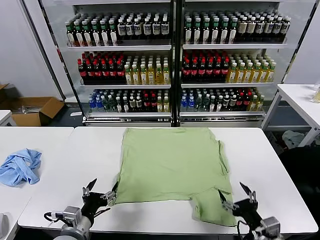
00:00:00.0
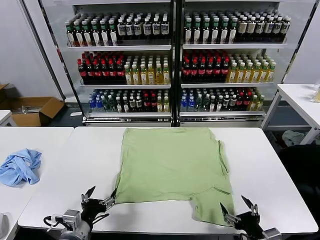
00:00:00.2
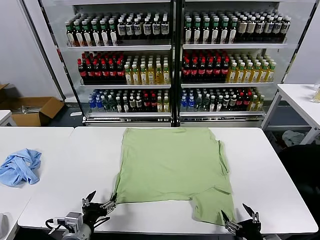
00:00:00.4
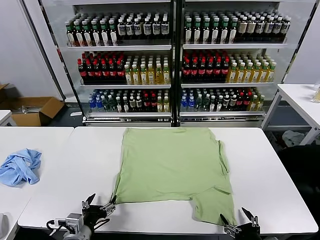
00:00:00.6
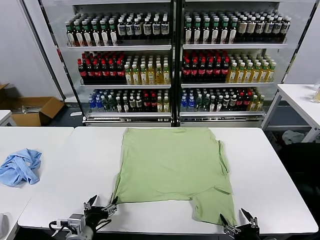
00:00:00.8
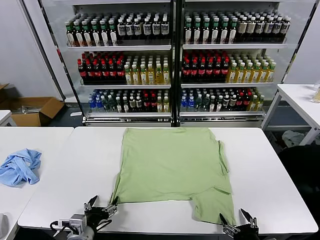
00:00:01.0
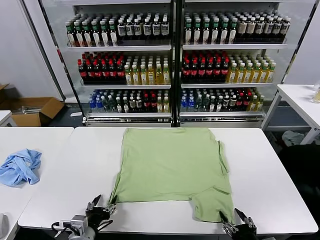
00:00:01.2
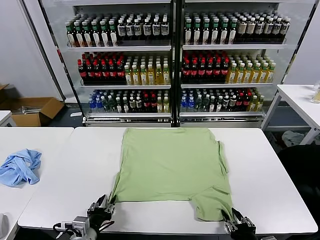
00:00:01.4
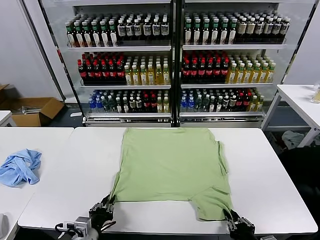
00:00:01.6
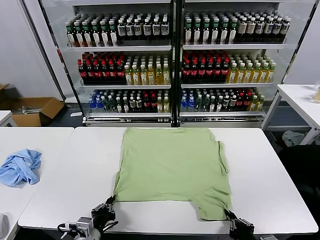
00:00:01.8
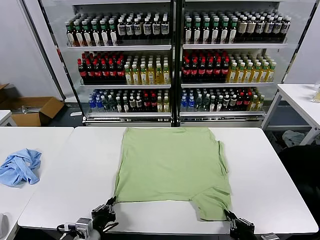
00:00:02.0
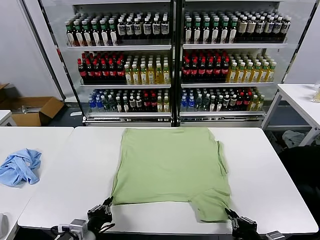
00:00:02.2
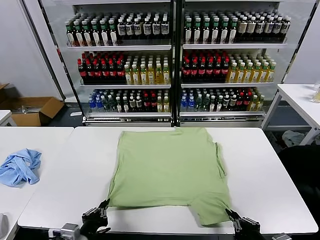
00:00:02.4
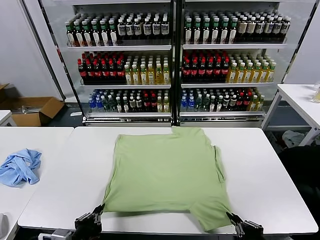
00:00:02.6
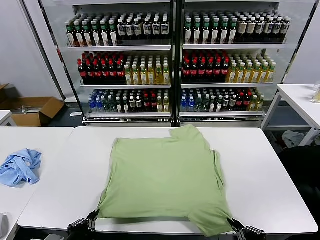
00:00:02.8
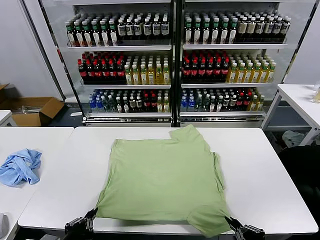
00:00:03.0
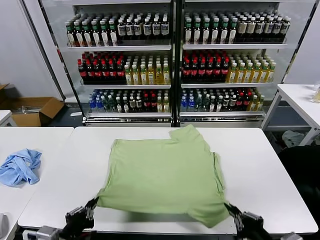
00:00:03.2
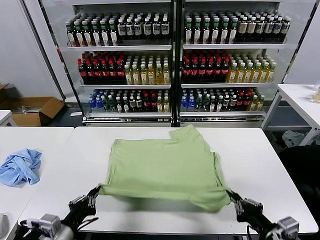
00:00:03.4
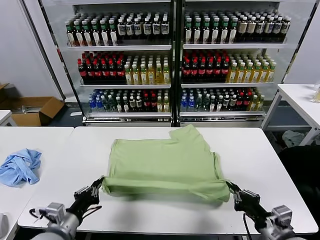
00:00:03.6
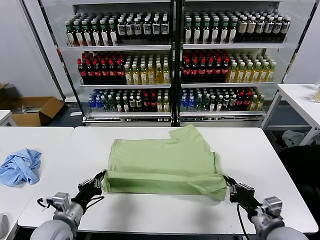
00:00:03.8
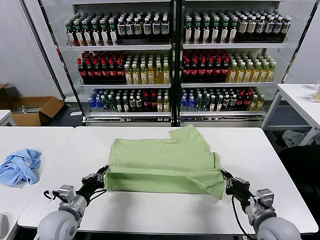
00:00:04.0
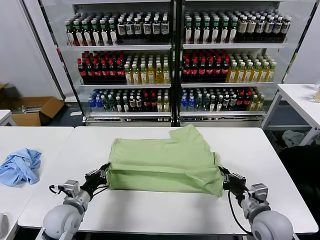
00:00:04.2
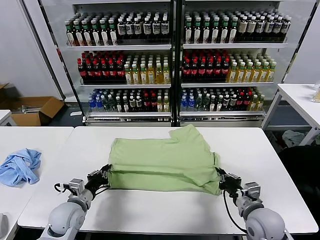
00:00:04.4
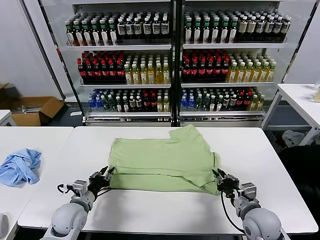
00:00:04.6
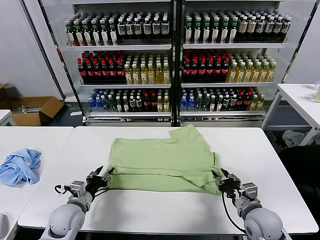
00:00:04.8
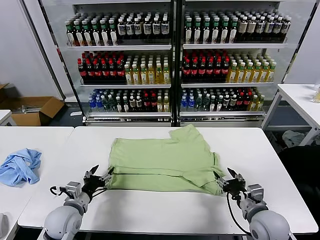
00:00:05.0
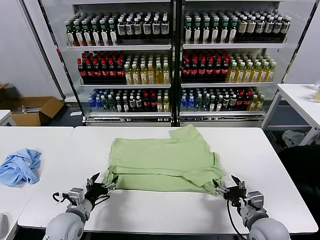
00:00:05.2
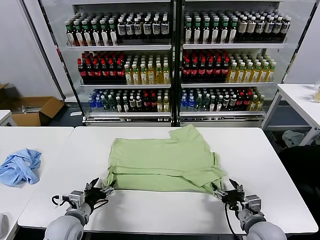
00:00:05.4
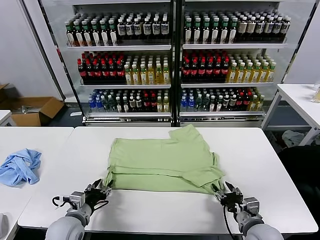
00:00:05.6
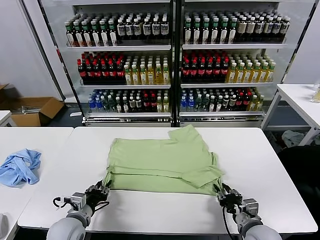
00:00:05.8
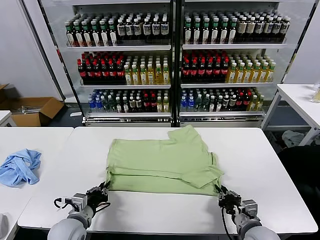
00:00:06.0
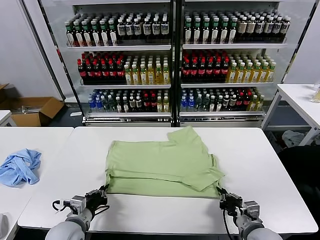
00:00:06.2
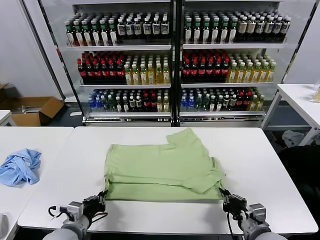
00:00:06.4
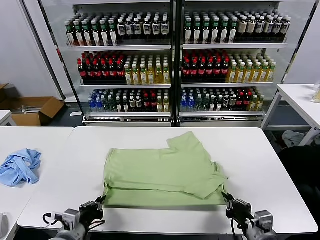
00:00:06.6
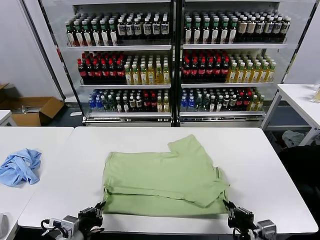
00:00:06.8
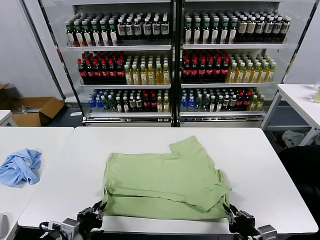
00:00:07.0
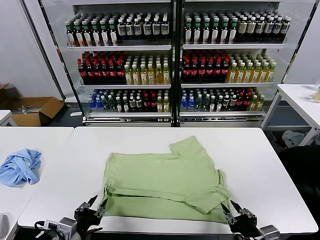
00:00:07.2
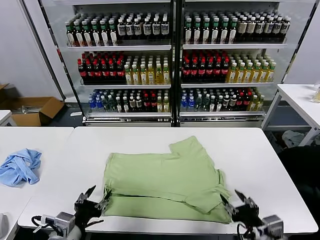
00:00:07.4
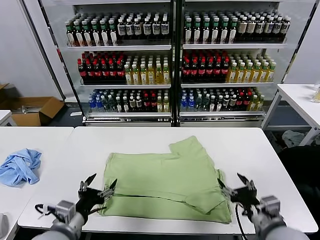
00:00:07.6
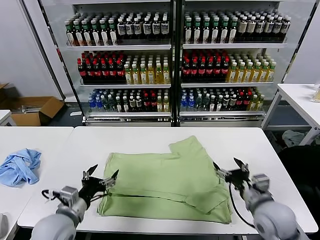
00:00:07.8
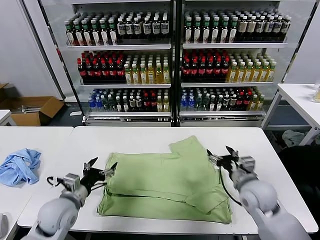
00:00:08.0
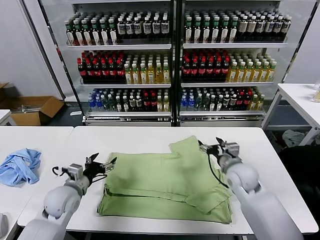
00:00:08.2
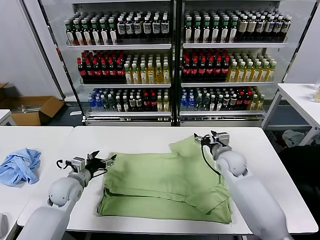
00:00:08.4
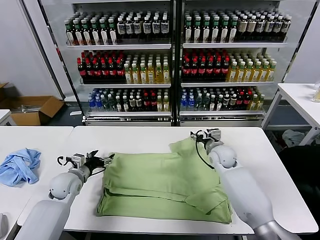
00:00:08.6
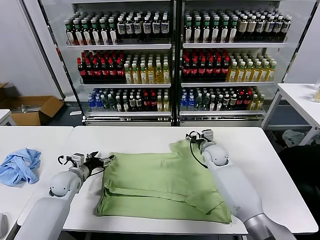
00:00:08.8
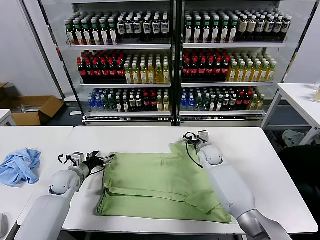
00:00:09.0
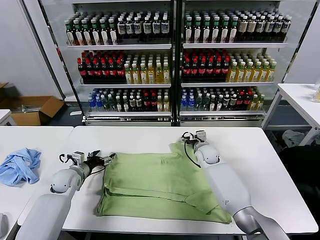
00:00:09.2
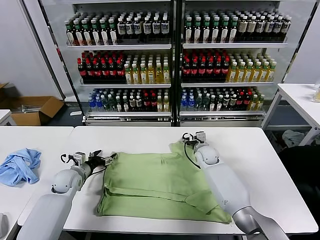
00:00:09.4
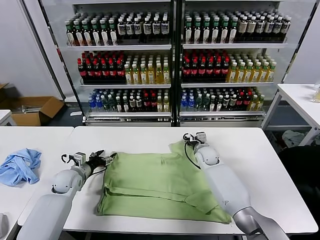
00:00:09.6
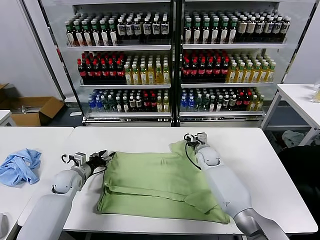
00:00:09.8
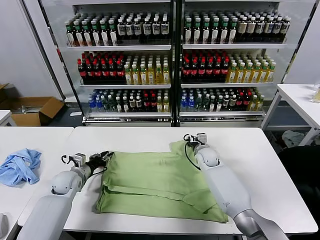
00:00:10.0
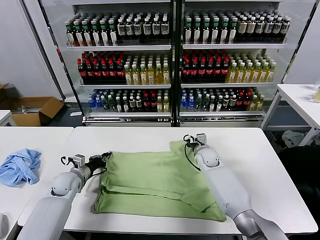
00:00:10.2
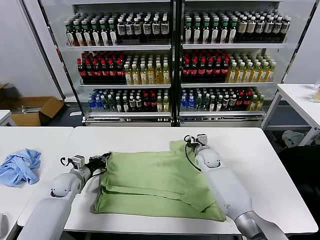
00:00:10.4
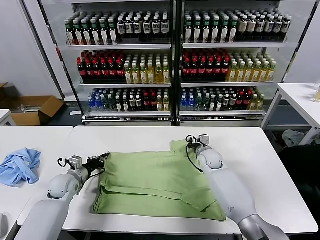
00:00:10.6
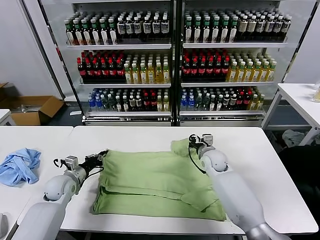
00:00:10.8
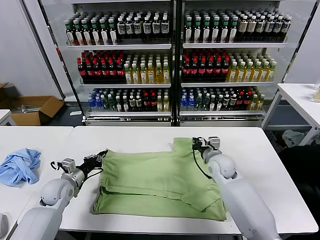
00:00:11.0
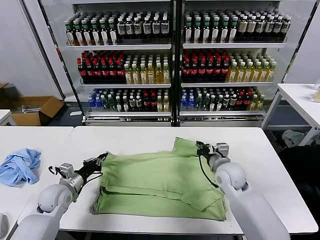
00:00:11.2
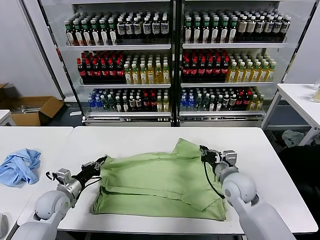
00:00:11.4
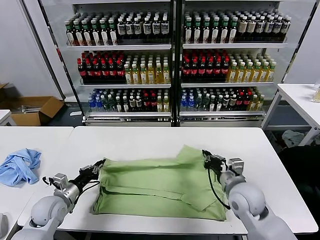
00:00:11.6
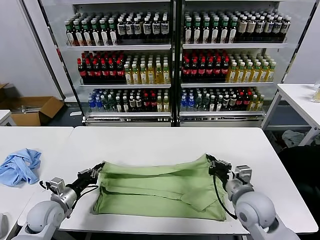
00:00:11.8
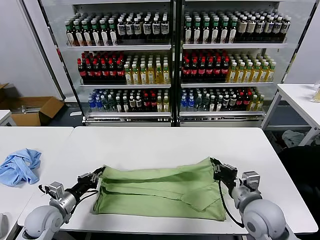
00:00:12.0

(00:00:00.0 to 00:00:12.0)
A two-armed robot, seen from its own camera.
Task of the whole recording: fold and organize the clothes.
Step, 00:00:00.0 - 00:00:02.2: use both grippers simultaneously to clamp the lower edge of the clothing fabric.
Step, 00:00:02.4 - 00:00:05.0: use both grippers to drag the lower edge of the fabric forward and fold it over the upper edge.
Step, 00:00:05.2 - 00:00:07.2: Drag the clothes downward with both gripper.
Step, 00:00:07.4 - 00:00:10.2: use both grippers simultaneously to clamp the upper edge of the clothing fabric.
00:00:01.6 - 00:00:03.0: The right gripper shifts roughly 10 cm upward. Meanwhile the left gripper is displaced upward and backward by about 10 cm.
00:00:03.0 - 00:00:04.4: The grippers both shift forward and downward by roughly 20 cm.
00:00:04.4 - 00:00:06.0: The right gripper moves some 5 cm, and opens, then closes once more; the left gripper travels backward by approximately 5 cm, and opens, then closes again.
00:00:06.0 - 00:00:07.6: The left gripper moves upward and backward, about 10 cm, and opens, while the right gripper shifts roughly 10 cm upward, and opens.
00:00:07.6 - 00:00:09.0: The left gripper travels forward and to the left by about 25 cm. The right gripper shifts approximately 35 cm forward.
00:00:09.0 - 00:00:10.4: The left gripper closes its fingers. Meanwhile the right gripper closes its fingers.
00:00:10.4 - 00:00:12.0: The left gripper heads backward, covering some 15 cm; the right gripper moves backward and upward, some 30 cm.

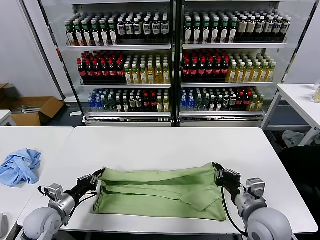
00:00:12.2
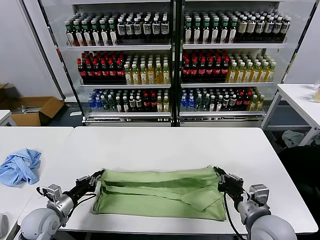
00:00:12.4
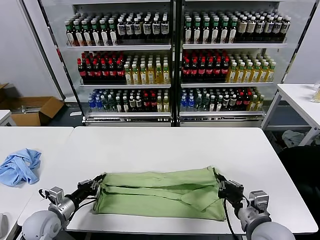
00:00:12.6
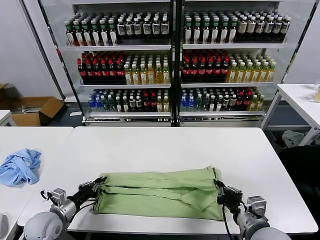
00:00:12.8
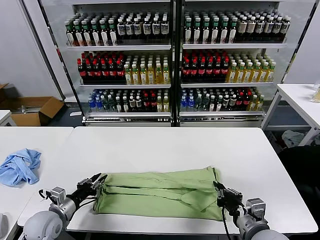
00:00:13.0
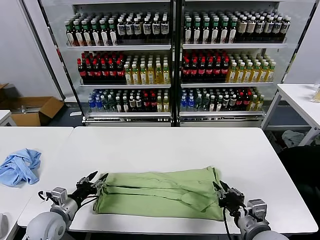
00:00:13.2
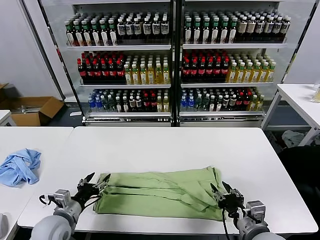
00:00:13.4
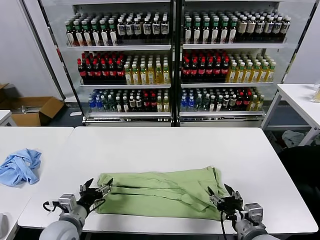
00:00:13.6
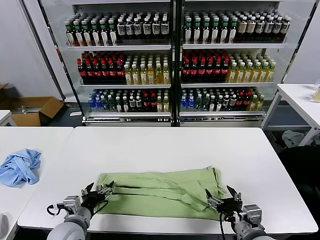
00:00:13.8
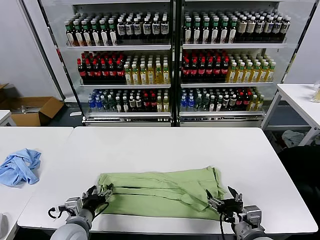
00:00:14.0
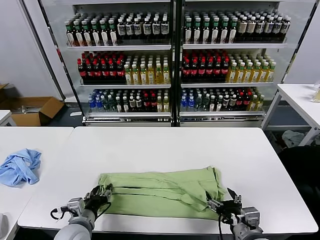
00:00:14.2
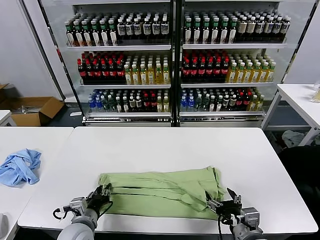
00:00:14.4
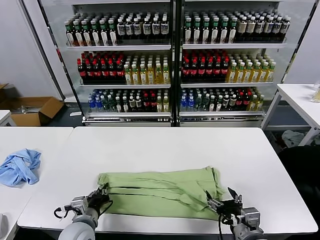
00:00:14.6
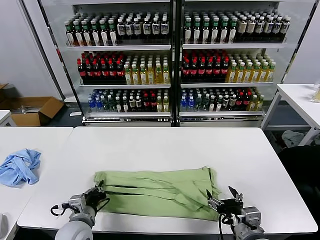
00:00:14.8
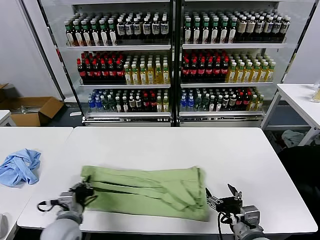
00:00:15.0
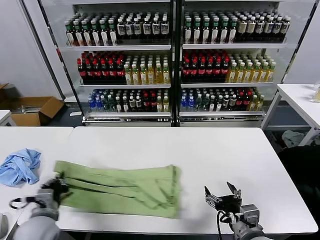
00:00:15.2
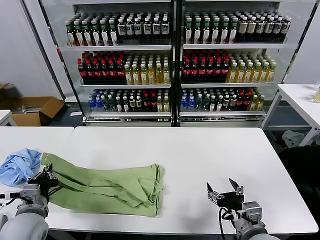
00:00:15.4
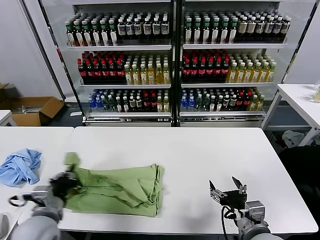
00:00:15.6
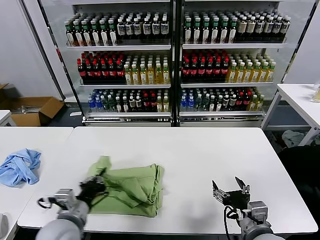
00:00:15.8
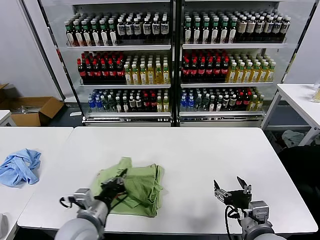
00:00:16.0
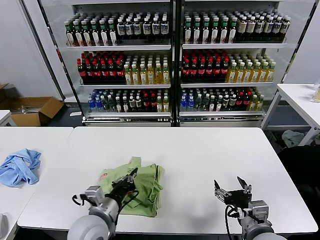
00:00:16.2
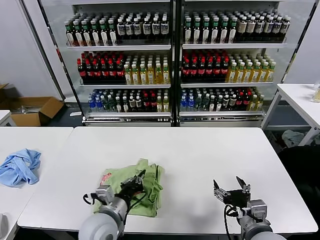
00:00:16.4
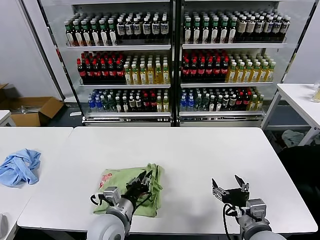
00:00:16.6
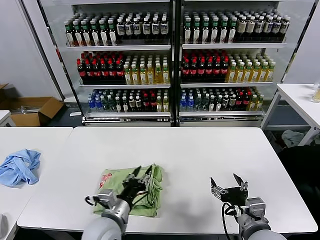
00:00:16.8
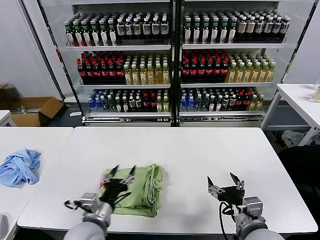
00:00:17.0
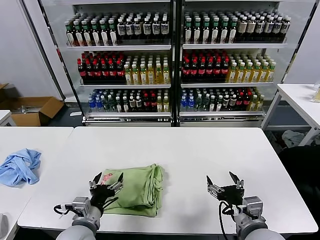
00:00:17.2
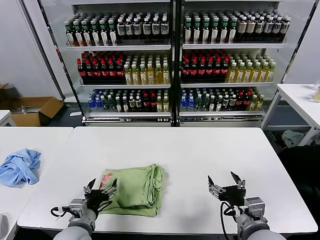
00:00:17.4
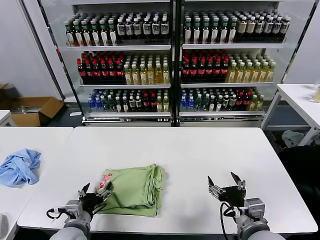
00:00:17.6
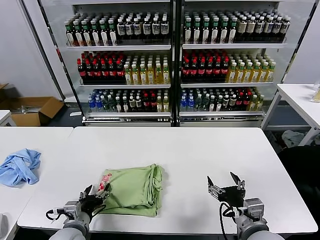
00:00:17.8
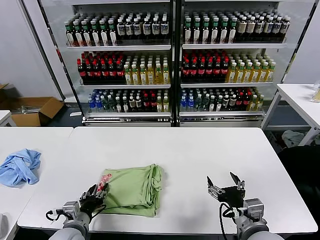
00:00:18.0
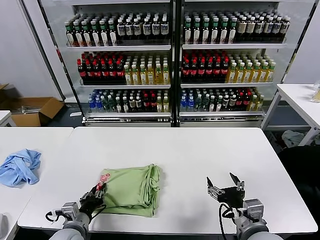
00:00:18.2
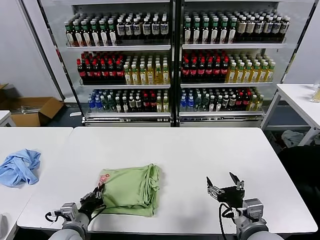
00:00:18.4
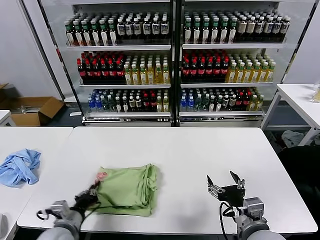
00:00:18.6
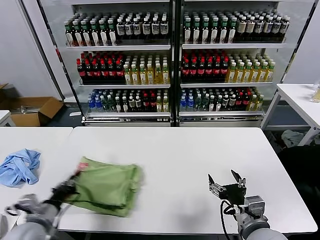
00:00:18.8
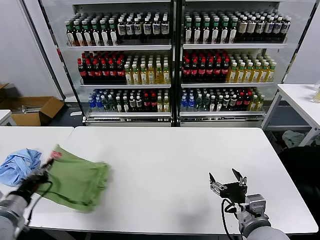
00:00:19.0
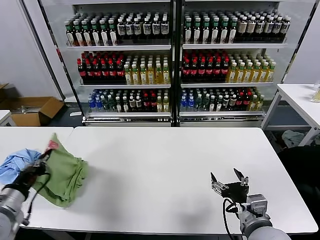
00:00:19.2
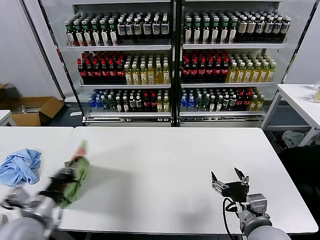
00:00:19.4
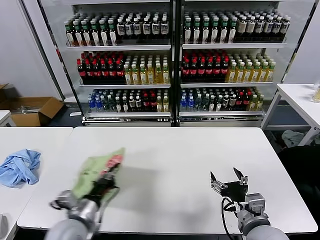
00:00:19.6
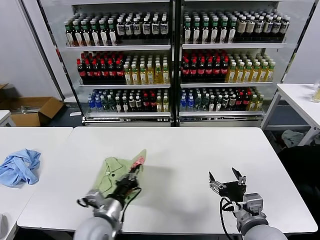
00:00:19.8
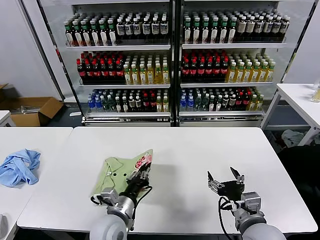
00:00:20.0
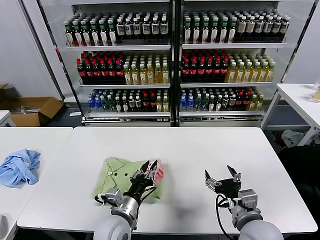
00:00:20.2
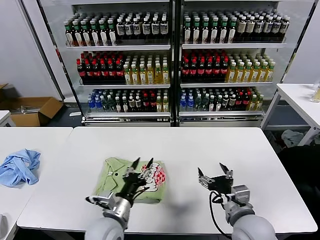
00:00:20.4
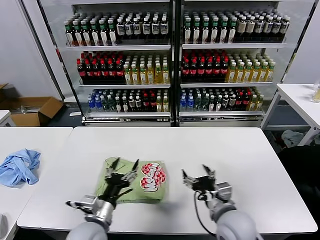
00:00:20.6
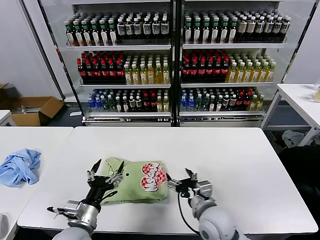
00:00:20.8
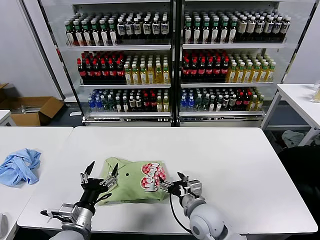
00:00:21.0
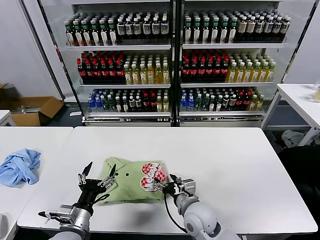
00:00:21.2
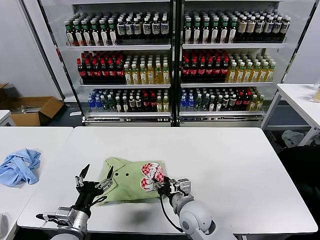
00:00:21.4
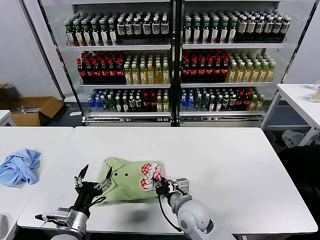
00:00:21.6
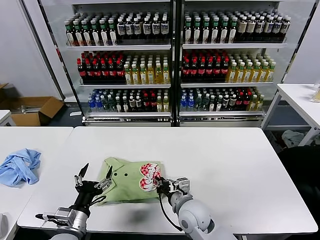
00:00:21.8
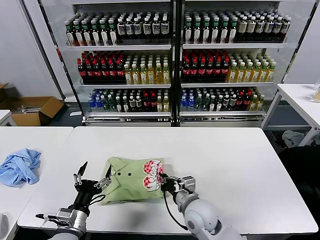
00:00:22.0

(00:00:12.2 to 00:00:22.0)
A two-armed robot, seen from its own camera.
Task of the whole recording: fold and organize the clothes.
Step, 00:00:13.6 - 00:00:14.6: use the left gripper to clamp the left edge of the fabric.
Step, 00:00:14.8 - 00:00:16.6: use the left gripper to drag the left edge of the fabric to the left and folds it over the right edge.
Step, 00:00:17.0 - 00:00:20.2: Flip the folded clothes over with left gripper.
00:00:12.2 - 00:00:13.6: The left gripper moves to the right, some 10 cm, and opens its fingers. Meanwhile the right gripper shifts about 5 cm backward, and opens.
00:00:13.6 - 00:00:15.0: The left gripper closes its fingers.
00:00:15.0 - 00:00:16.4: The left gripper goes about 10 cm to the right.
00:00:16.4 - 00:00:17.8: The left gripper moves to the left and downward, some 15 cm, and opens.
00:00:17.8 - 00:00:19.2: The left gripper moves upward and to the left, some 20 cm, and closes its fingers.
00:00:19.2 - 00:00:20.6: The left gripper heads to the right and downward, covering roughly 25 cm, and opens its fingers; the right gripper shifts approximately 5 cm to the left.
00:00:20.6 - 00:00:22.0: The right gripper shifts about 10 cm to the left, forward and downward, and closes up. Meanwhile the left gripper moves to the left, approximately 10 cm.
